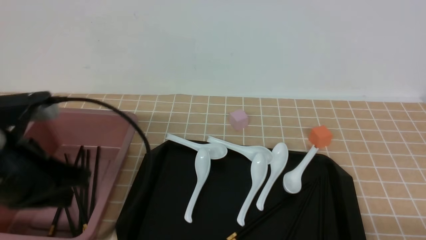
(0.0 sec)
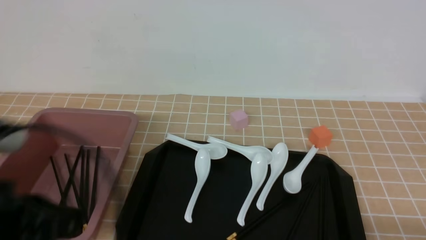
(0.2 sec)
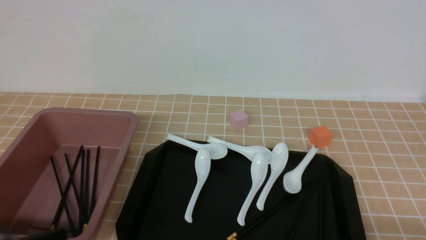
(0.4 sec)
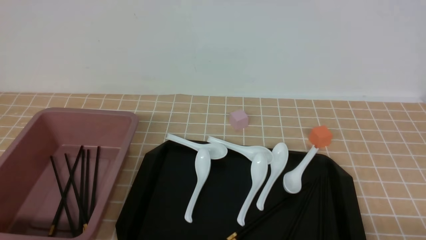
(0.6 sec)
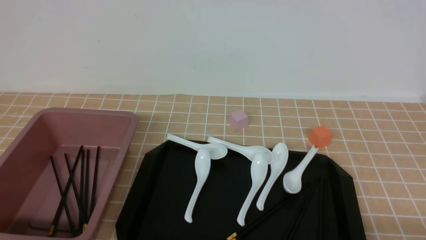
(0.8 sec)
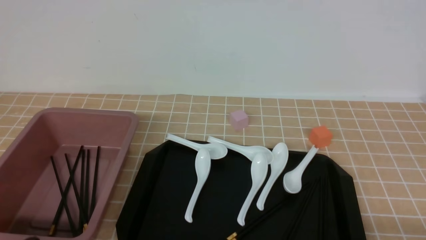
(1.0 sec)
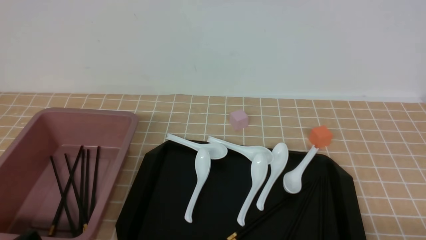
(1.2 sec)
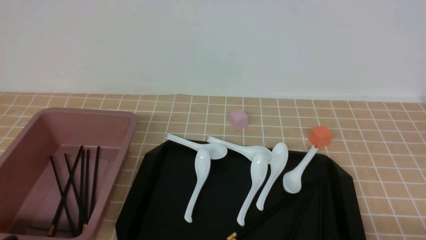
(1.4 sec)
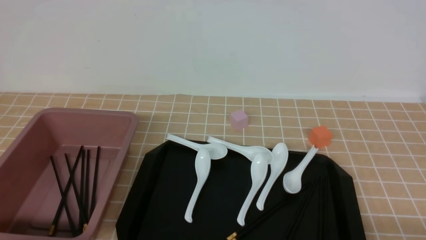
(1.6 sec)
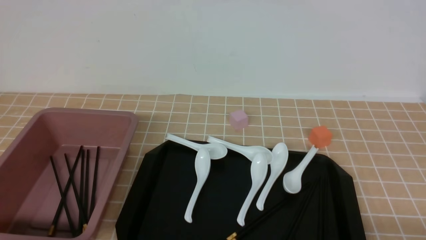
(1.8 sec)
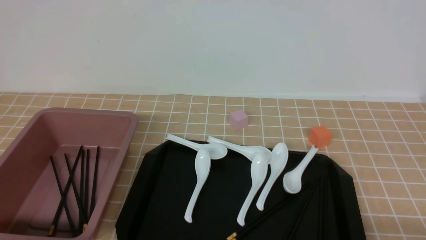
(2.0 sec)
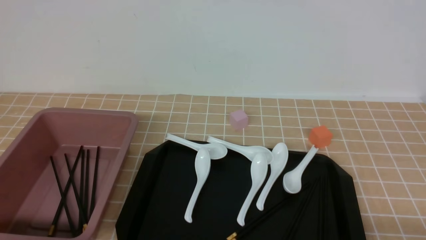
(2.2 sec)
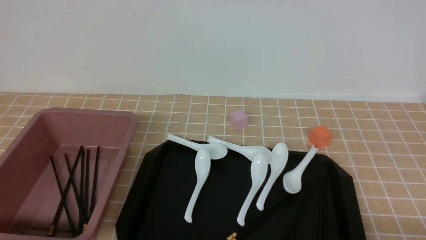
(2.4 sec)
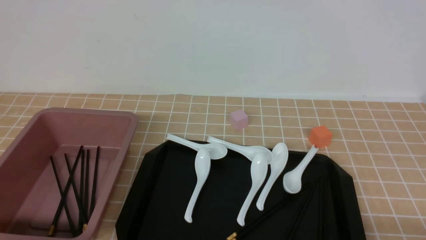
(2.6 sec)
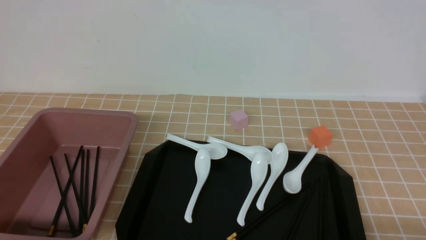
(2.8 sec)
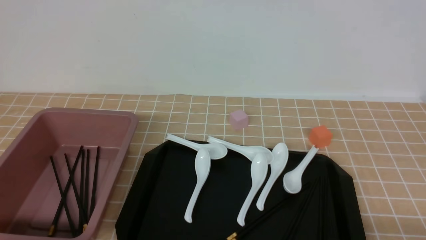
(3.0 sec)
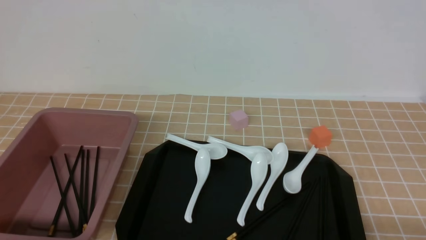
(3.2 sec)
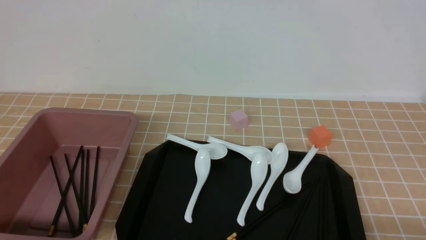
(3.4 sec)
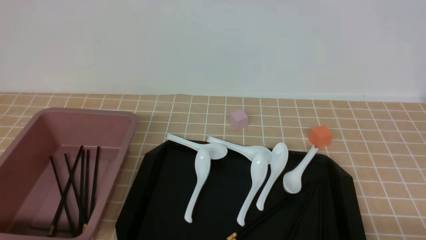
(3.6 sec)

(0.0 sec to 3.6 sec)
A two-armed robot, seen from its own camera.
0.0 sec - 1.8 sec: The left gripper travels backward and downward by roughly 20 cm.
1.8 sec - 3.6 sec: Both grippers stay put.
